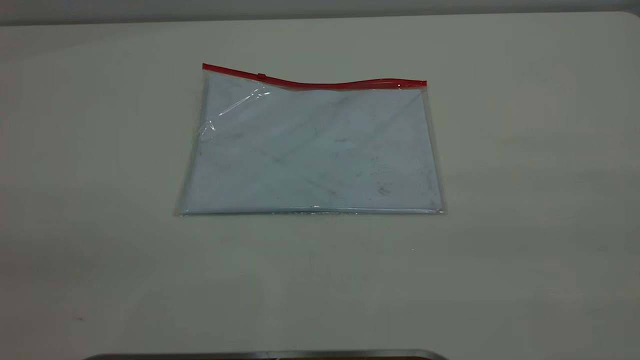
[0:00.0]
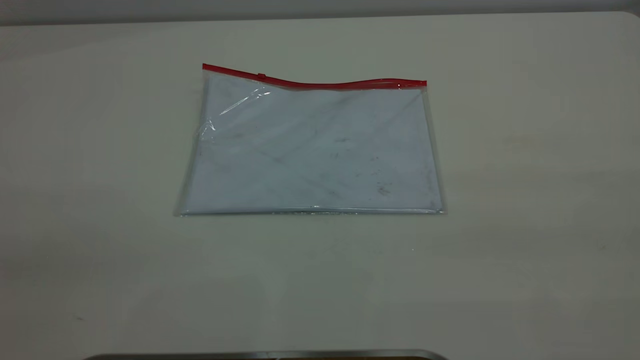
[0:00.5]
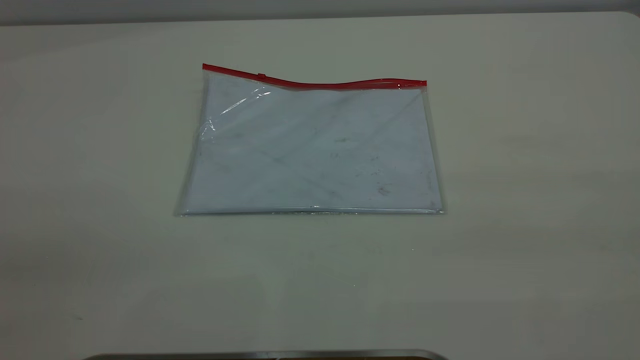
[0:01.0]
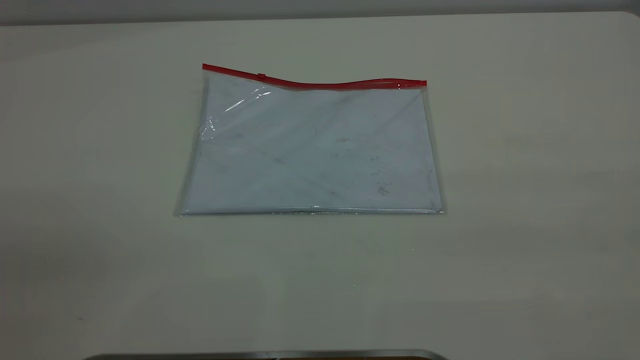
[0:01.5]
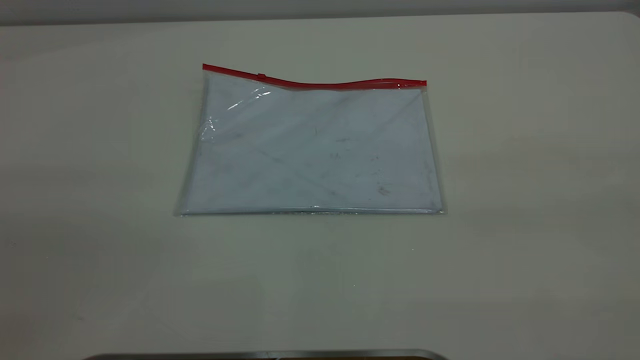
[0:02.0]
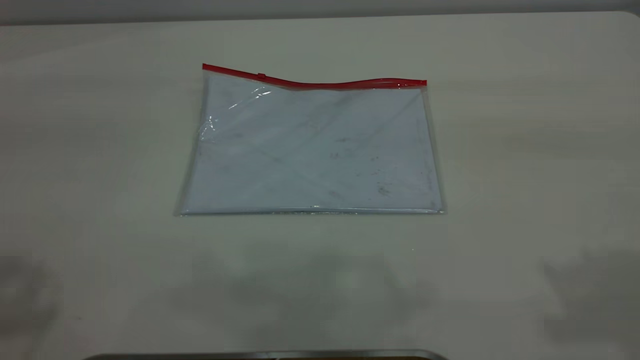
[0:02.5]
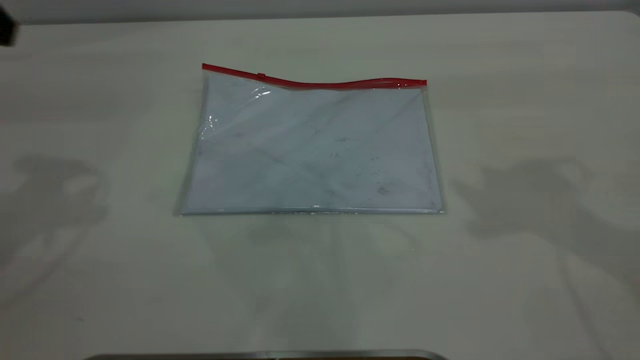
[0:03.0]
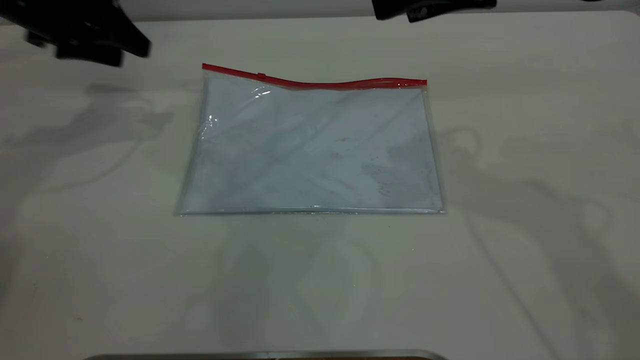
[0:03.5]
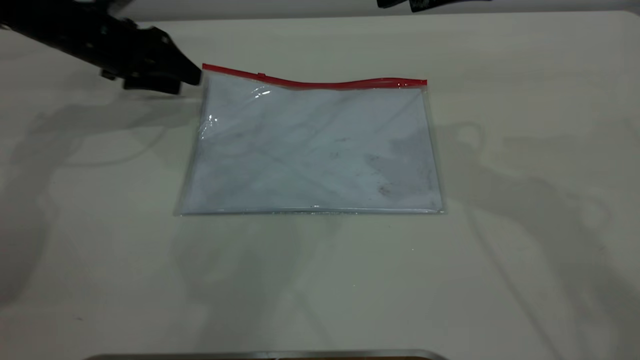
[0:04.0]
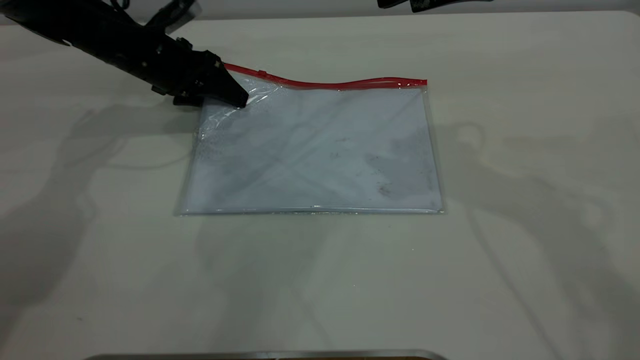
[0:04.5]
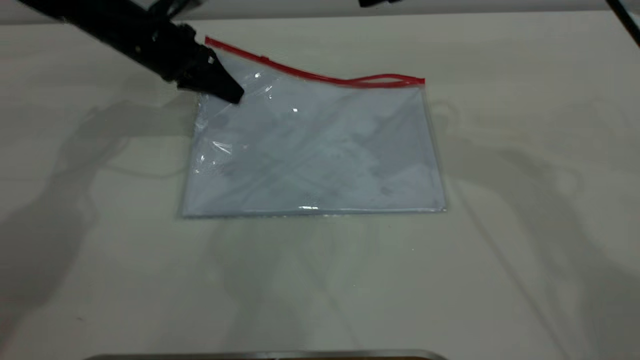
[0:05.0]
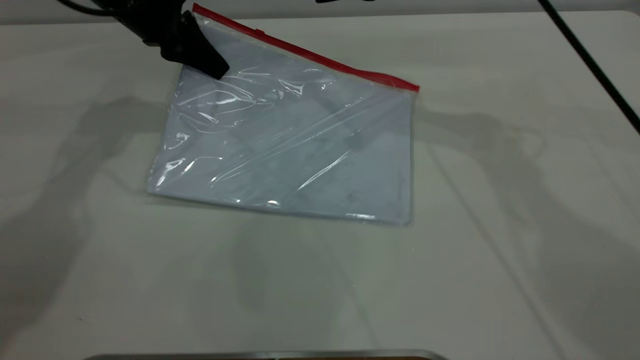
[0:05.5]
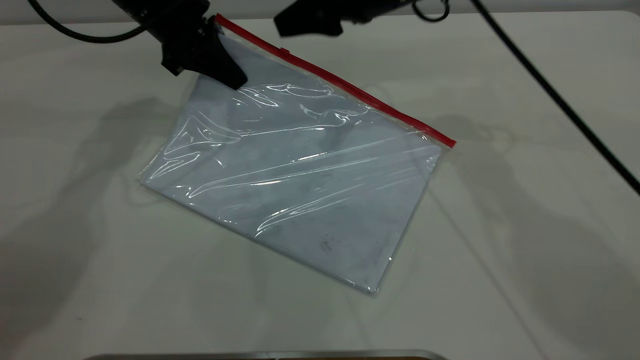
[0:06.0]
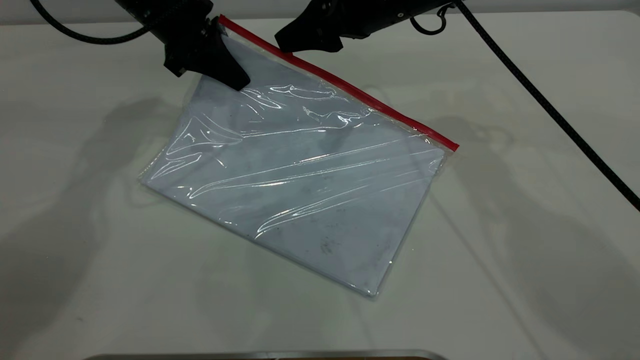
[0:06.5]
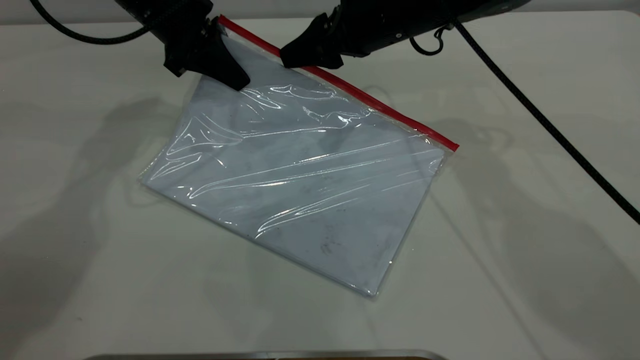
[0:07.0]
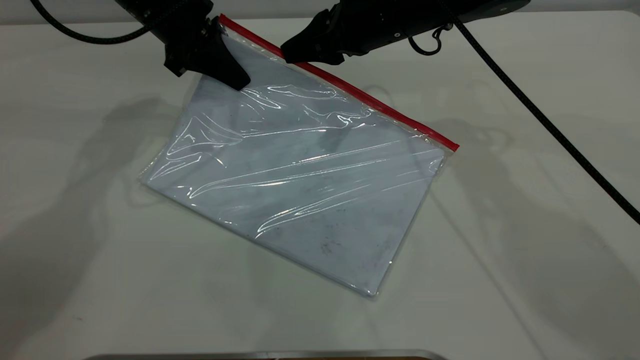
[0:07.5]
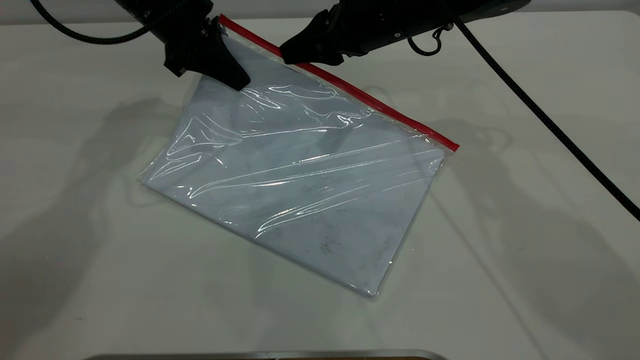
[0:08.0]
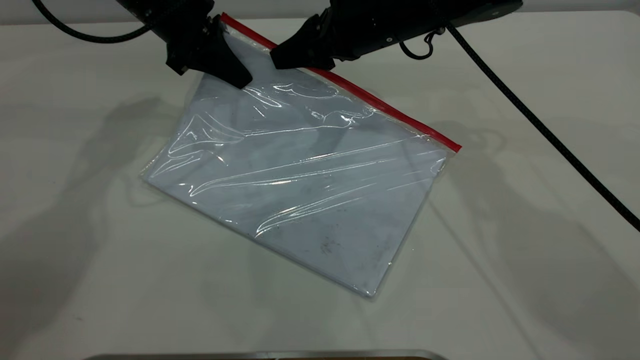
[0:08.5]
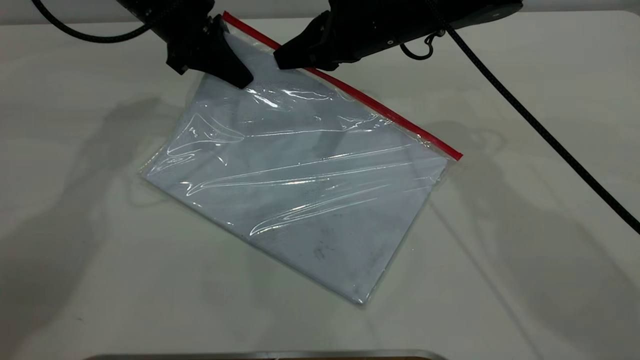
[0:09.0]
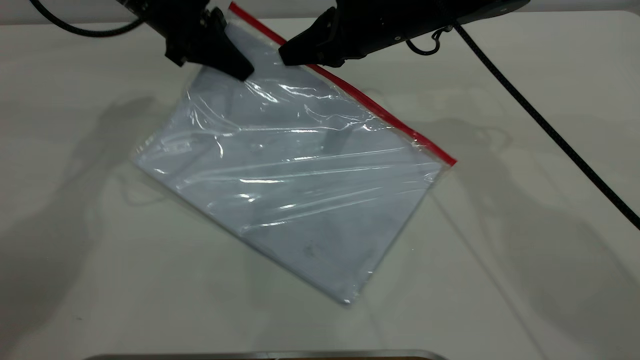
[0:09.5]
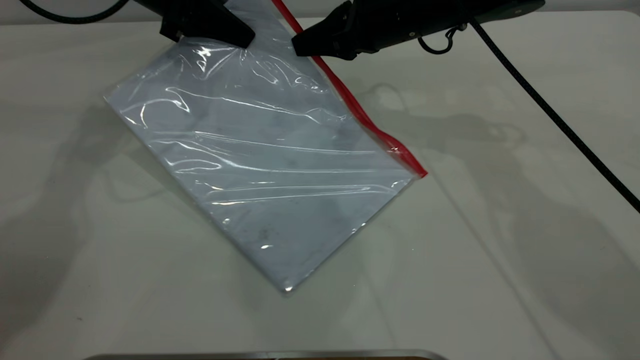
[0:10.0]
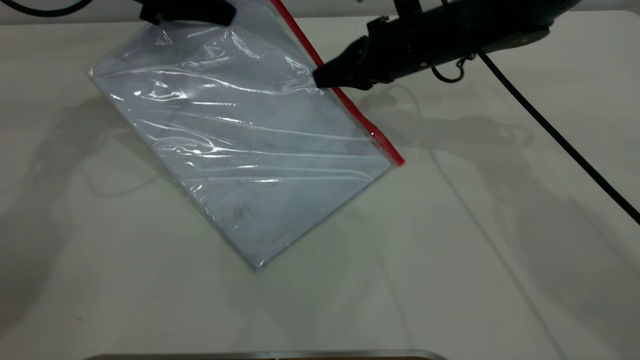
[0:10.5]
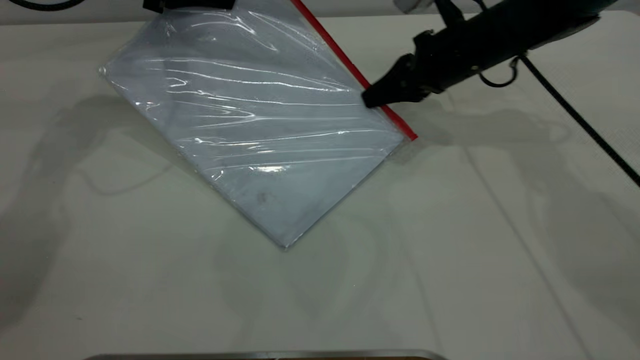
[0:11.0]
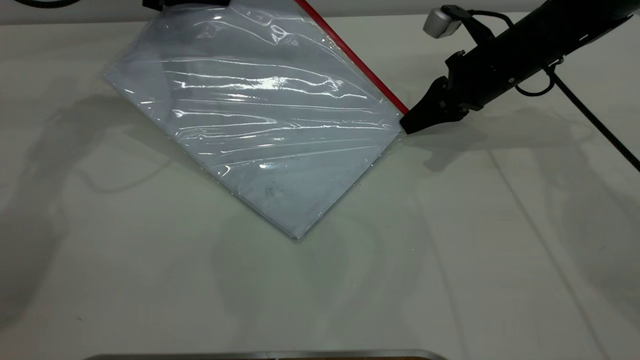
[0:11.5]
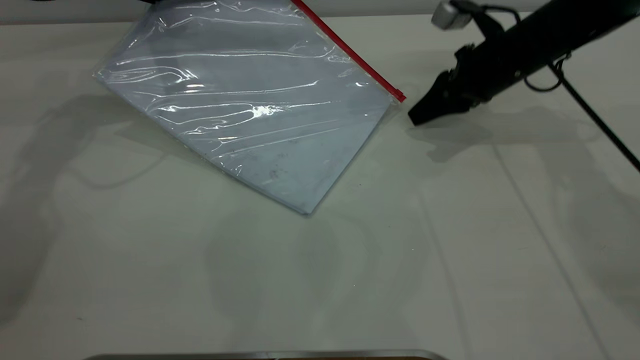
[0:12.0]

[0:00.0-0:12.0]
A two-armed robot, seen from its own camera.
Step, 0:00.0 to 0:05.0: Pick up the transparent plastic bag with the left gripper.
0:02.0 to 0:04.0: The left gripper travels forward and downward by approximately 60 cm.
0:04.0 to 0:06.0: The right gripper moves forward, downward and to the left, roughly 15 cm. The left gripper travels to the right and upward by about 10 cm, and closes its fingers.
0:06.0 to 0:08.0: The grippers stay close to where they were, moving slightly.
0:08.0 to 0:10.0: The right gripper closes its fingers.
0:10.0 to 0:12.0: The right gripper heads to the right, covering about 10 cm, and opens its fingers.

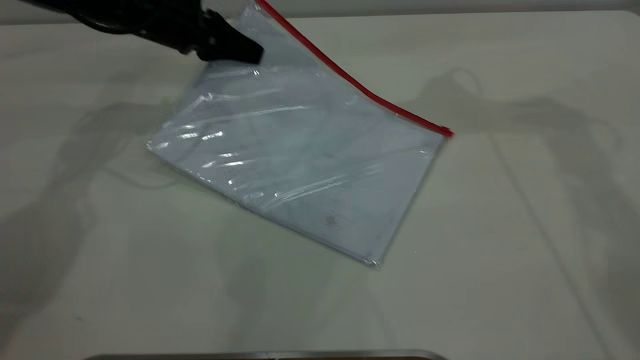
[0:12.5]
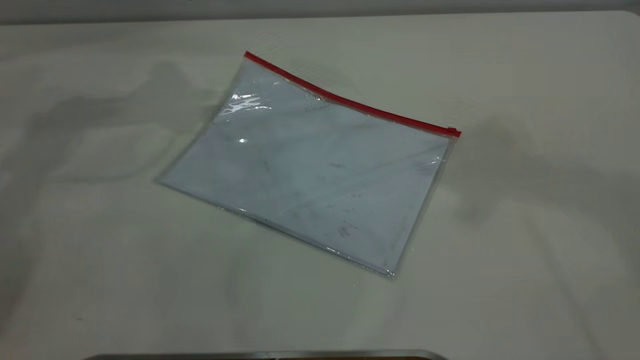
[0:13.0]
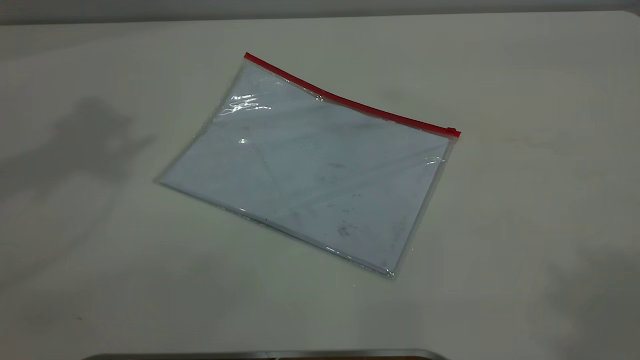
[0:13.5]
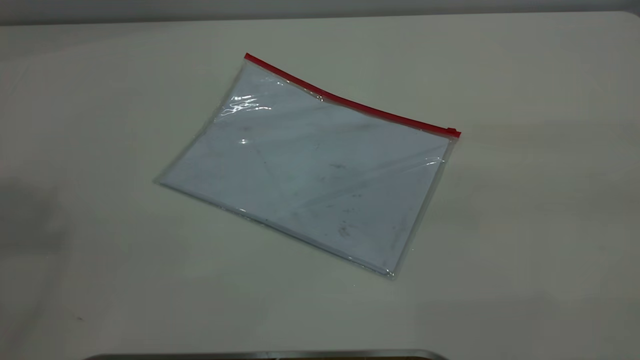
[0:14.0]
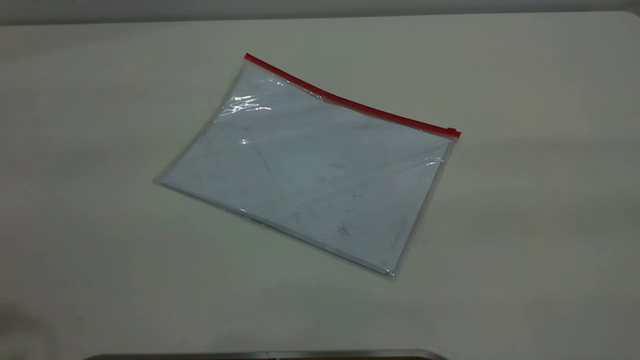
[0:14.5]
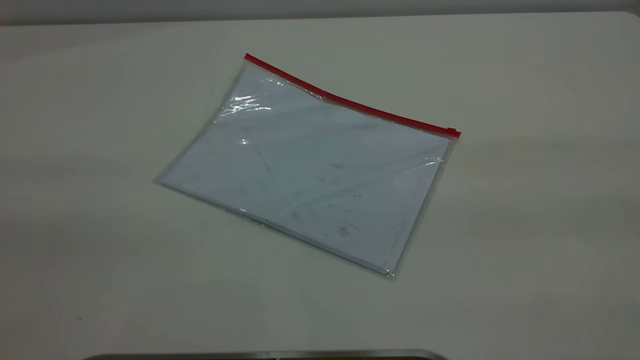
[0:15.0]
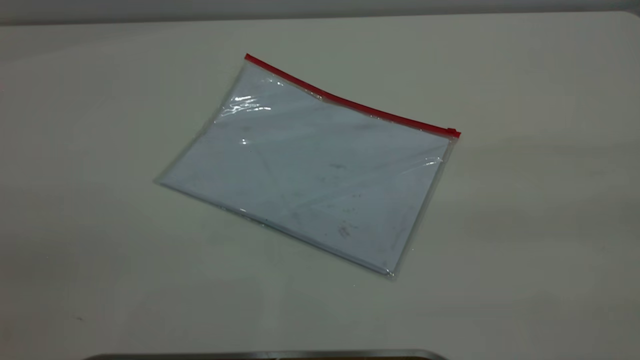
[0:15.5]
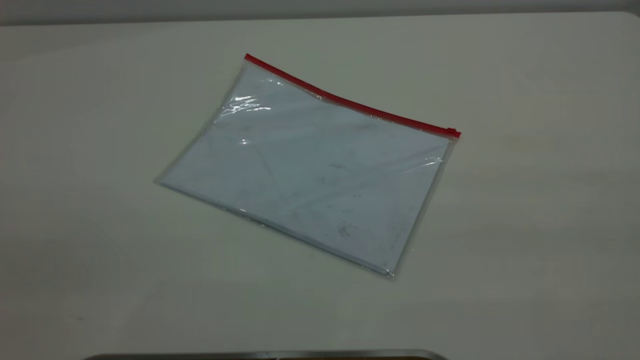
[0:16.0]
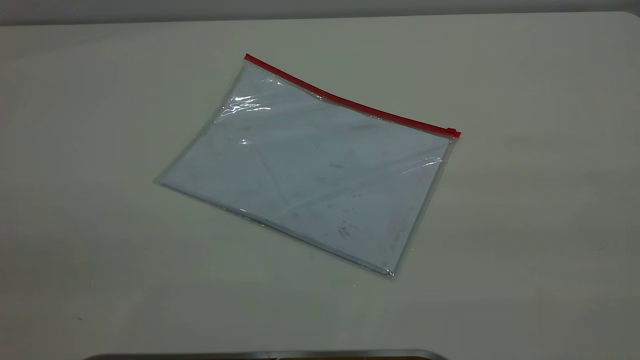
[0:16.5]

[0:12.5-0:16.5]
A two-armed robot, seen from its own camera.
0:12.5 to 0:14.5: The right gripper heads backward, covering approximately 40 cm. The left gripper travels backward and upward by roughly 50 cm, and opens up.
